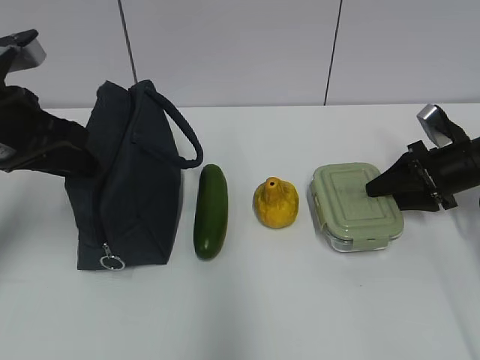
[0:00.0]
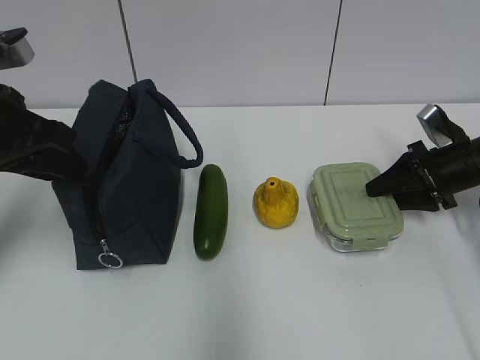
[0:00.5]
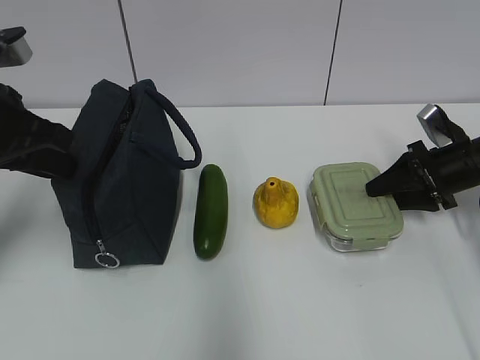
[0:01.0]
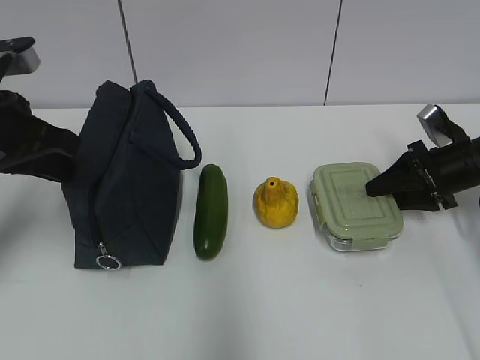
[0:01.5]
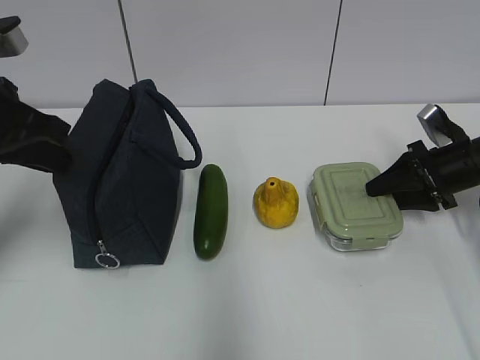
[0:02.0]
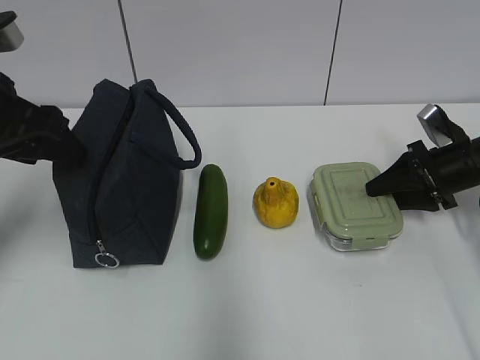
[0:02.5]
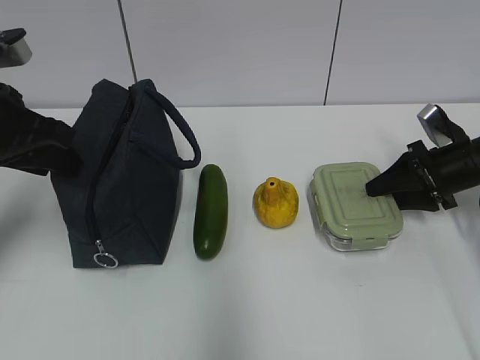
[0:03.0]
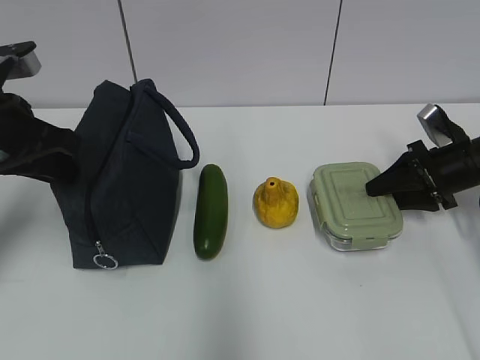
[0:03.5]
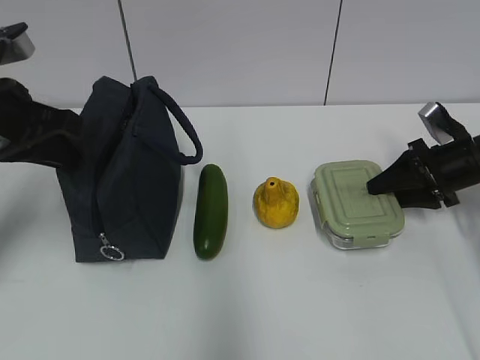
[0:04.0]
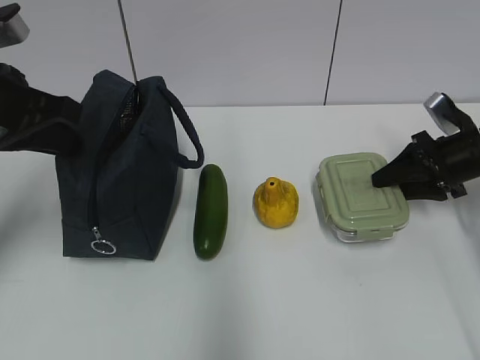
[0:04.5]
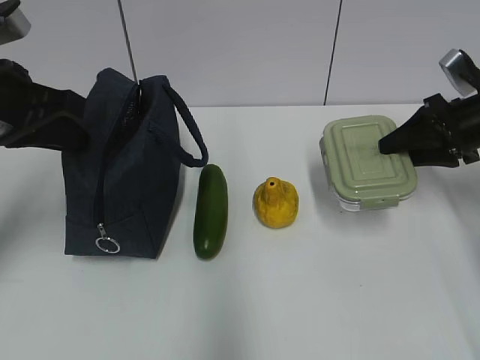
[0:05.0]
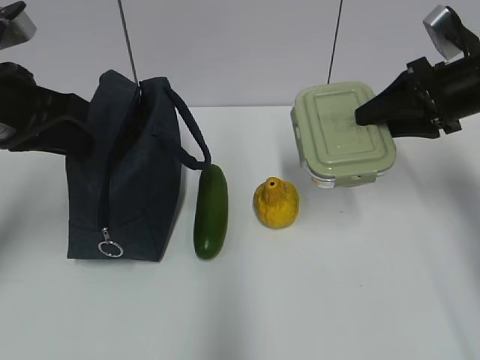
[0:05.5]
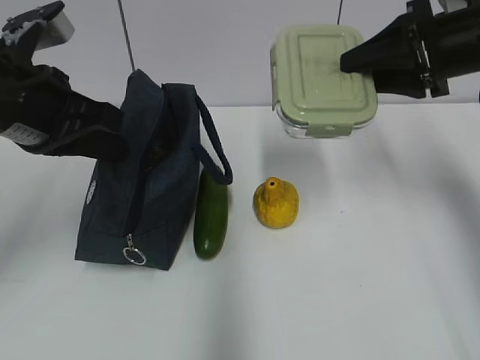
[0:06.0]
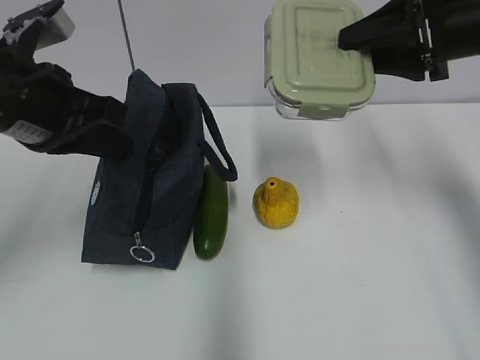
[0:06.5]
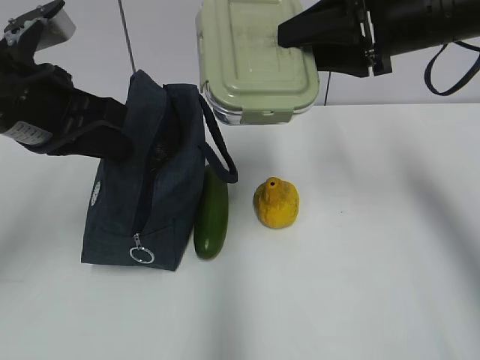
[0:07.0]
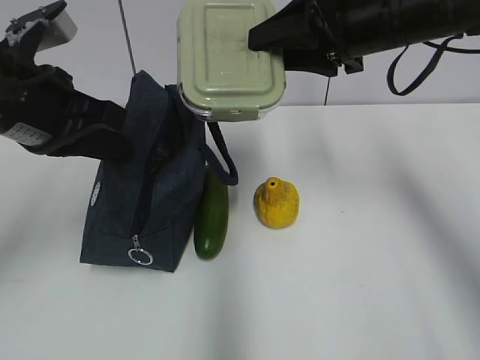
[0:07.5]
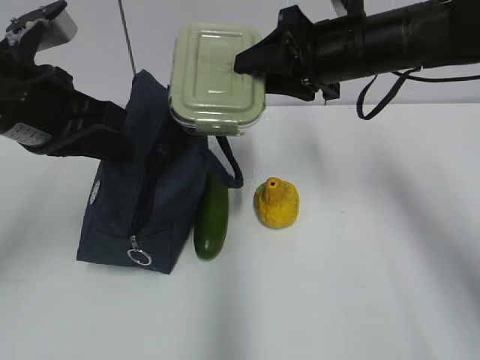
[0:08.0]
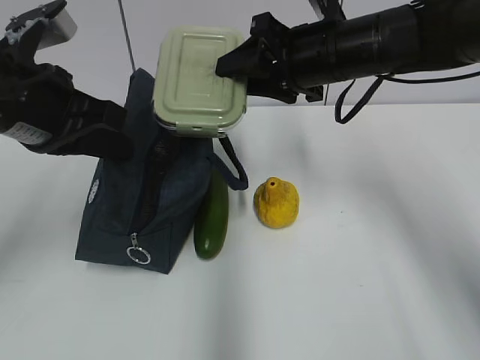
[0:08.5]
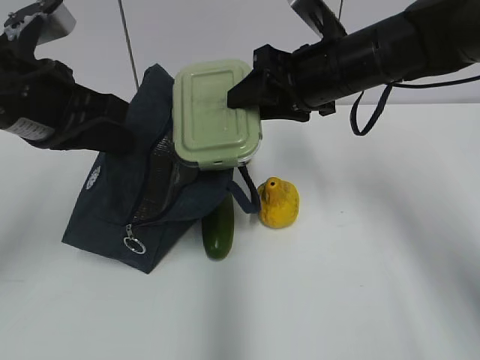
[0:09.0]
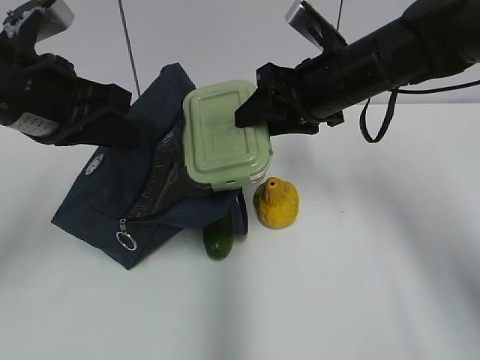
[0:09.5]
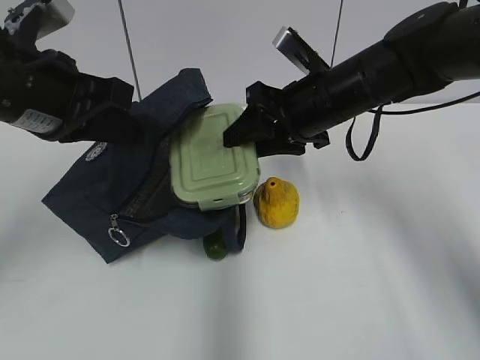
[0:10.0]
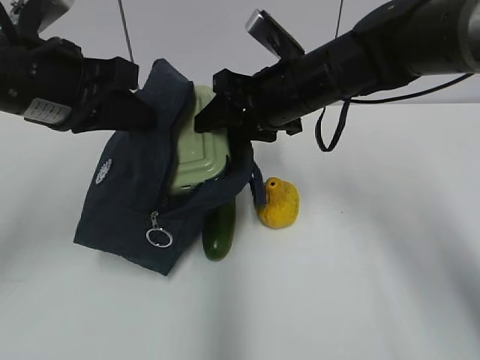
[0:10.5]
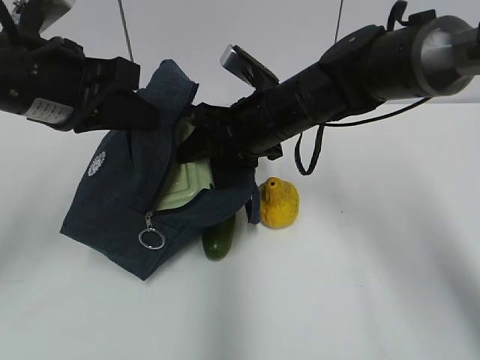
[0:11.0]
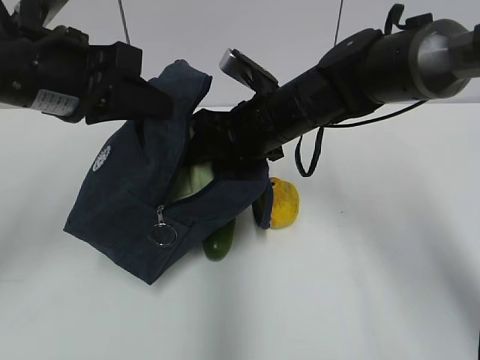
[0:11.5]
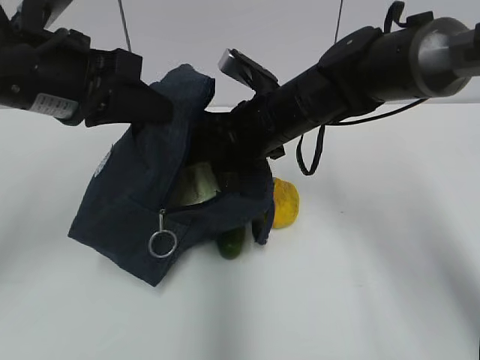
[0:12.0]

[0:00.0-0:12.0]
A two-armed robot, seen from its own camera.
Step, 0.0 to 8.5 s: Grab the lunch bag with your left hand.
0.0 to 2.0 s: The left gripper closes.
2.0 to 4.0 s: The left gripper opens and closes again.
4.0 to 6.0 s: The right gripper is displaced upward and to the left by roughly 20 cm. The left gripper changes place by about 5 cm.
6.0 to 8.0 s: The right gripper goes approximately 10 cm to the left.
8.0 to 10.0 s: The right gripper travels downward by approximately 5 cm.
10.0 to 12.0 s: The right gripper travels to the left by roughly 5 cm.

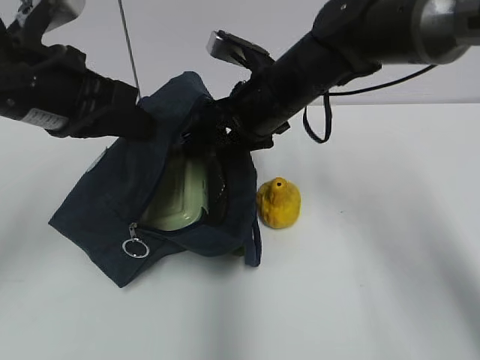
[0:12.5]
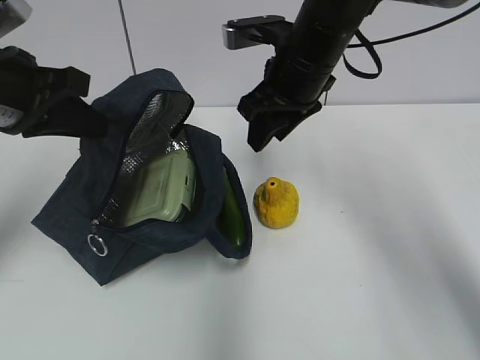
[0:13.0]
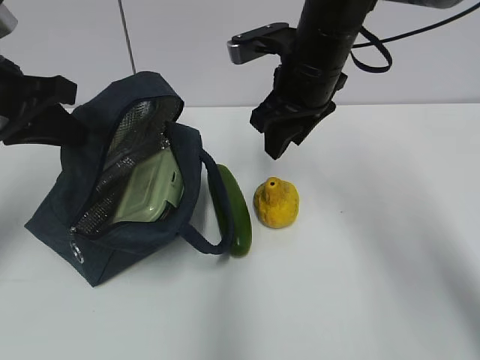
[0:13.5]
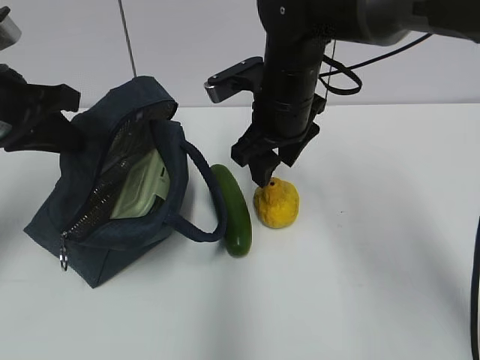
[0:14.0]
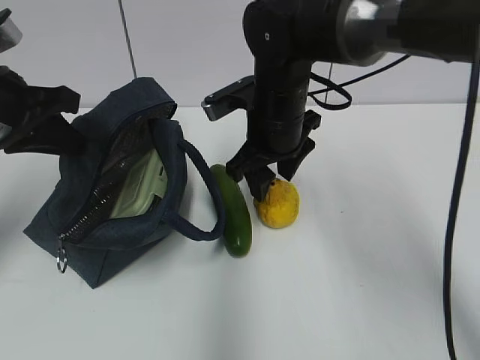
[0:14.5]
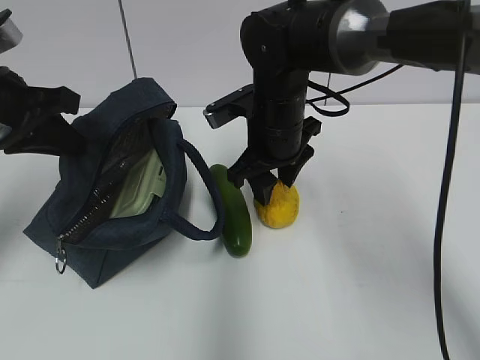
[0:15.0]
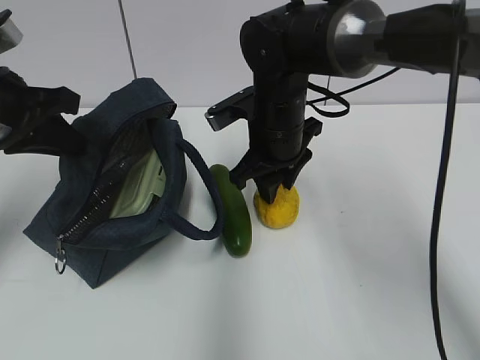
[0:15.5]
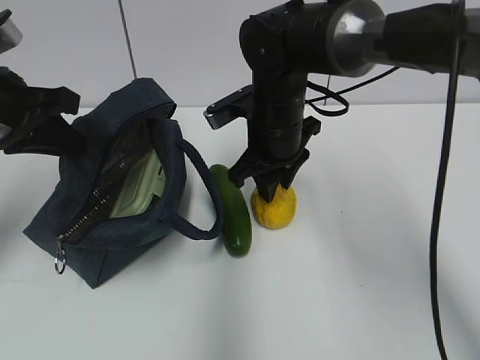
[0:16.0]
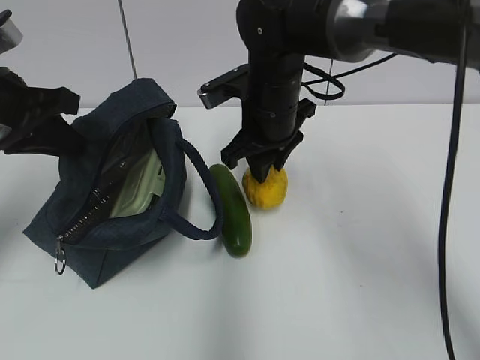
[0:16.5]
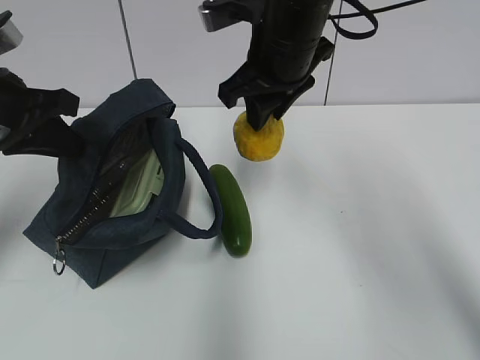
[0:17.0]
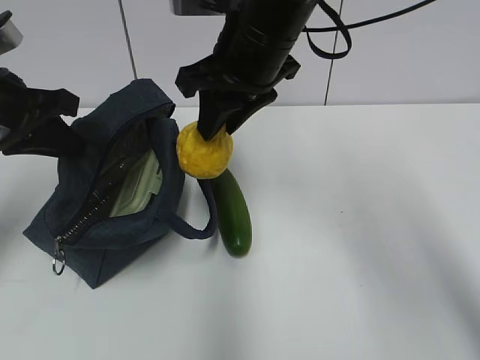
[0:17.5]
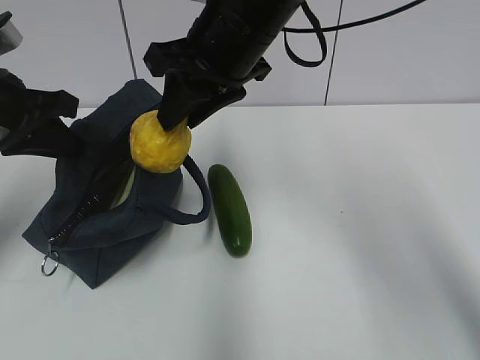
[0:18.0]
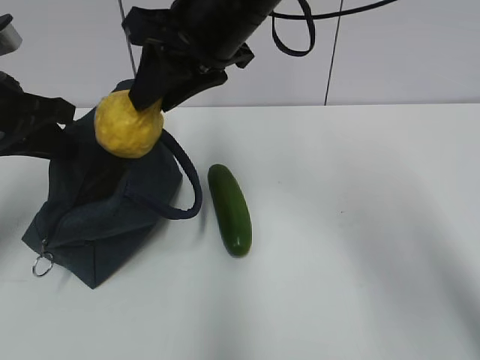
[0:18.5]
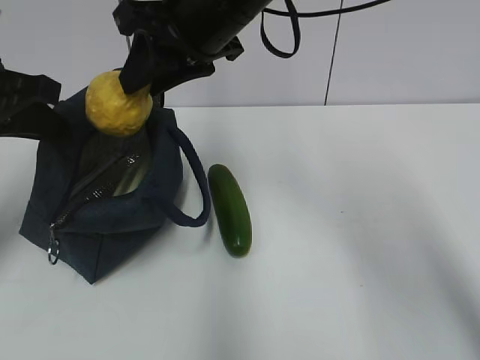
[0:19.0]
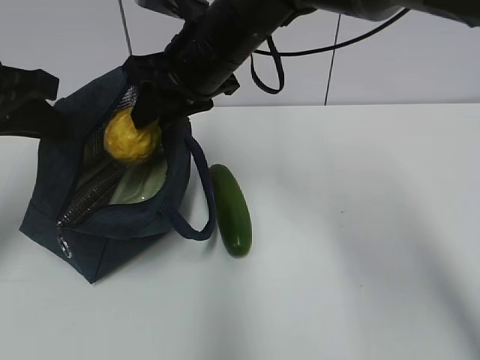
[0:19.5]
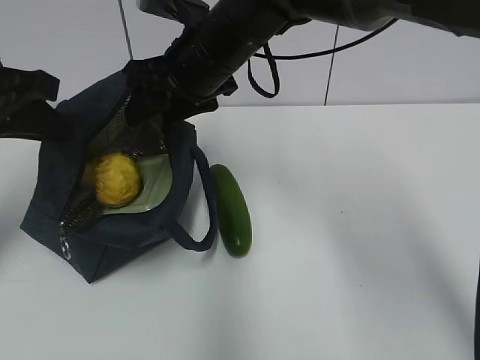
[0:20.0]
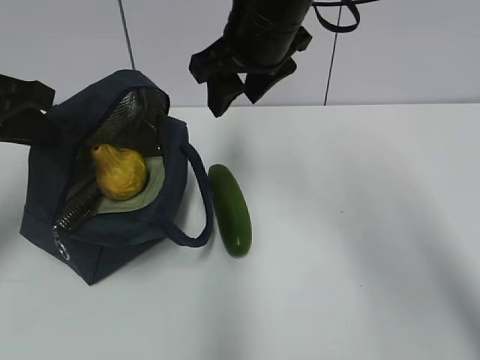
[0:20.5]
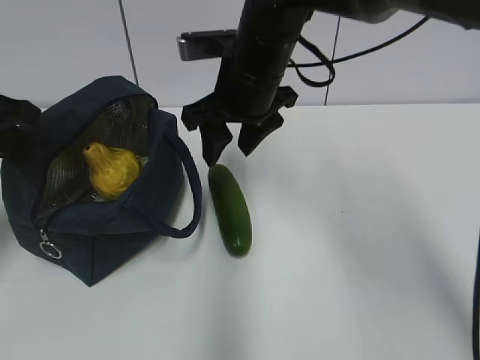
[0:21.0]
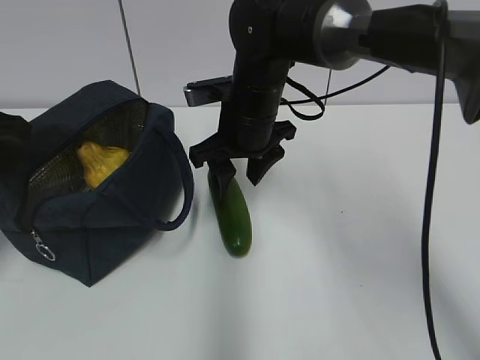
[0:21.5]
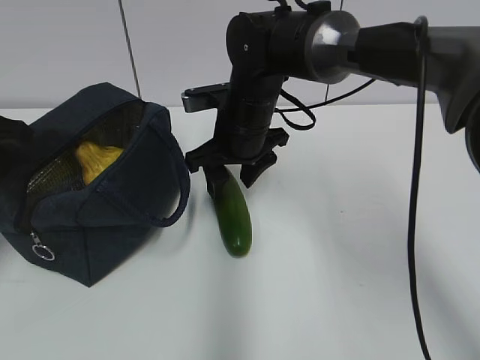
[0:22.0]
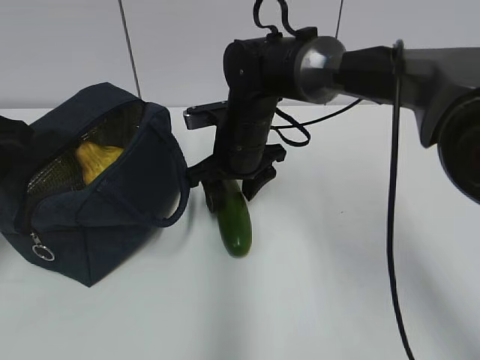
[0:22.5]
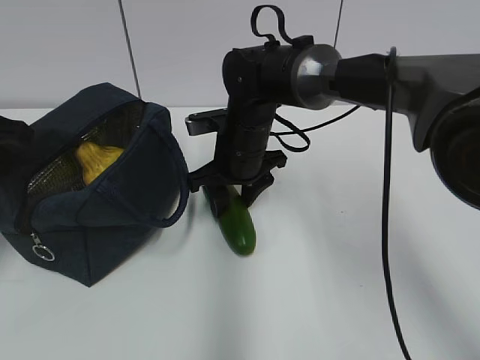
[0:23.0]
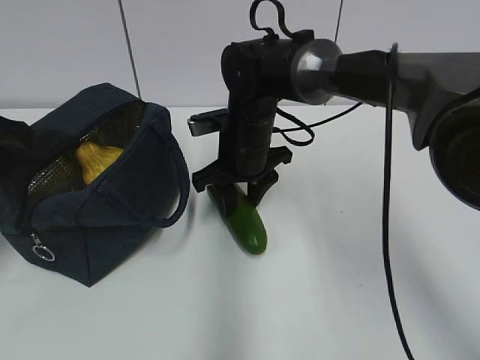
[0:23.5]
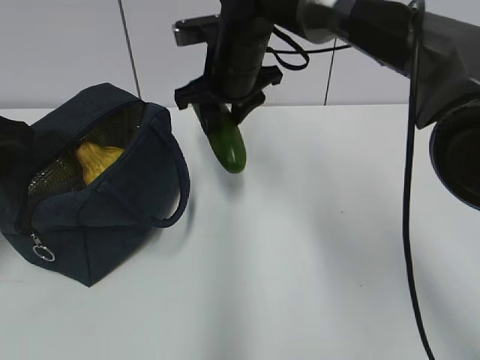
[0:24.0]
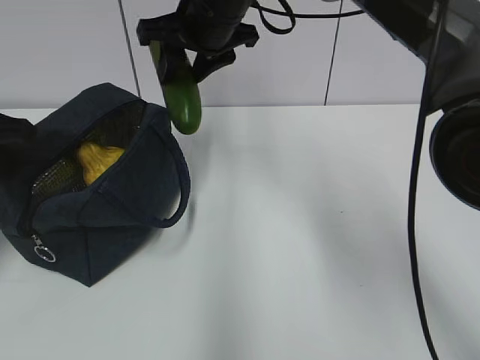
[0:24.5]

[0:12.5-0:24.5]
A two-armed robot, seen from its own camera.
Step, 13.0 to 15.5 s: Grab the pear with your right hand.
Step, 16.0 to 19.5 s: Place it into the bag with your right hand.
Step, 20.5 to 23.0 s: Grab the cucumber with your right hand.
12.5 to 14.5 s: The left gripper shifts approximately 5 cm to the left.
14.5 to 16.5 s: There are only small adjustments of the grippers.
16.5 to 18.5 s: The right gripper is displaced upward and backward by roughly 15 cm.
18.5 to 20.5 s: The right gripper opens.
20.5 to 22.5 s: The right gripper travels downward by approximately 15 cm.
22.5 to 24.5 s: The right gripper heads upward, covering roughly 15 cm.

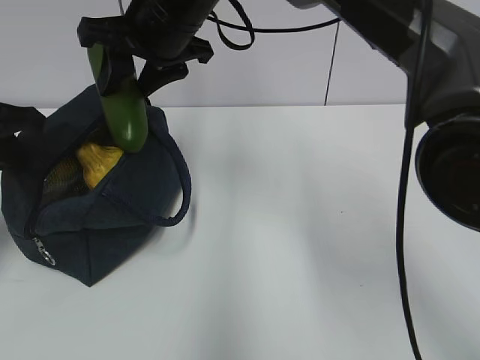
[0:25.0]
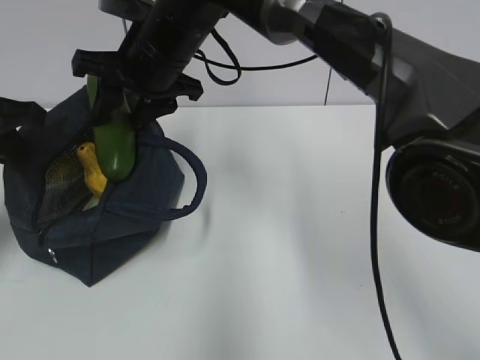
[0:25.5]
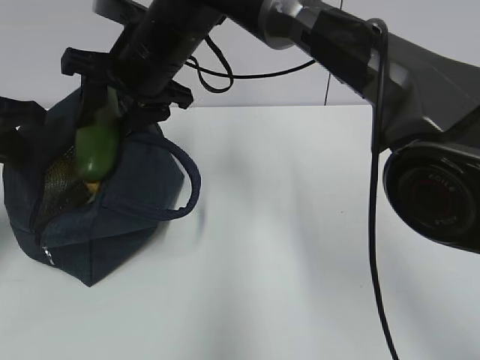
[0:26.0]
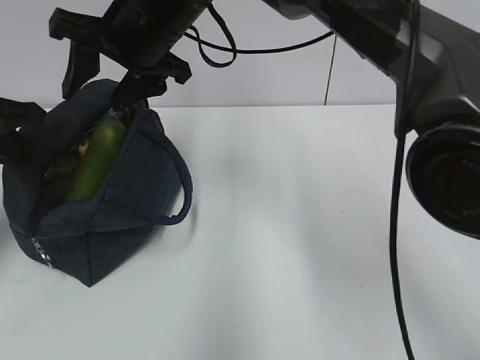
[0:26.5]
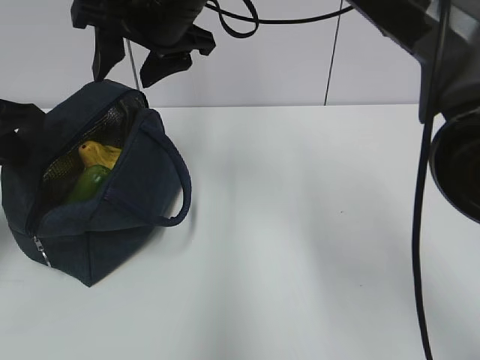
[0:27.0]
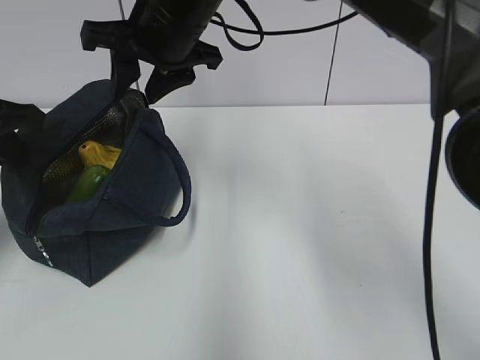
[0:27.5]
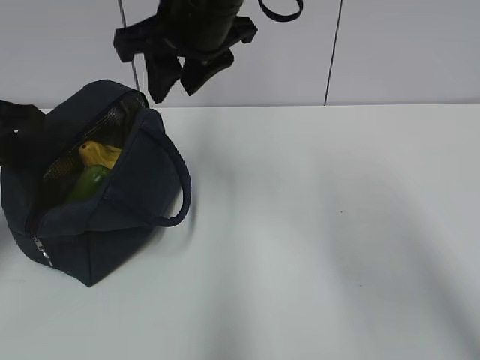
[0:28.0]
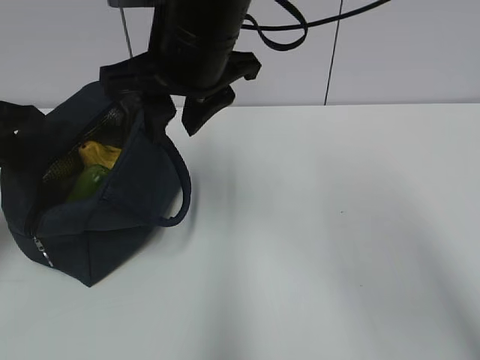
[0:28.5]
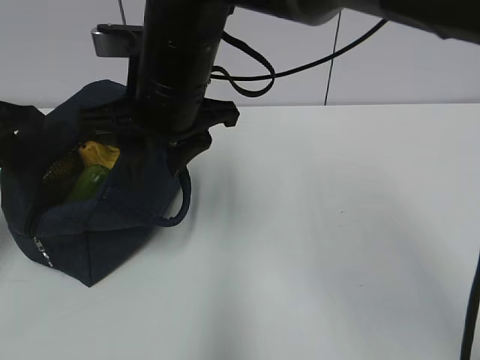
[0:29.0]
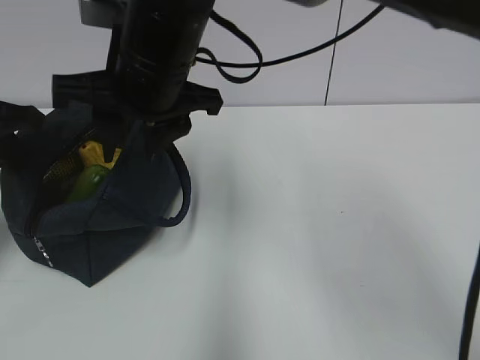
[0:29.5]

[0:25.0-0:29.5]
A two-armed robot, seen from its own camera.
25.0 to 27.0 s: The grippers move only a little.
27.0 to 29.5 s: The right gripper shifts about 5 cm backward.
